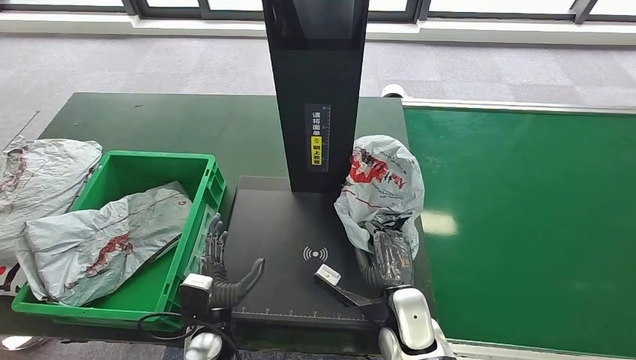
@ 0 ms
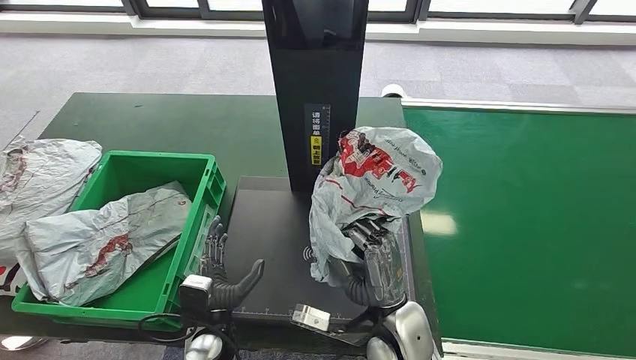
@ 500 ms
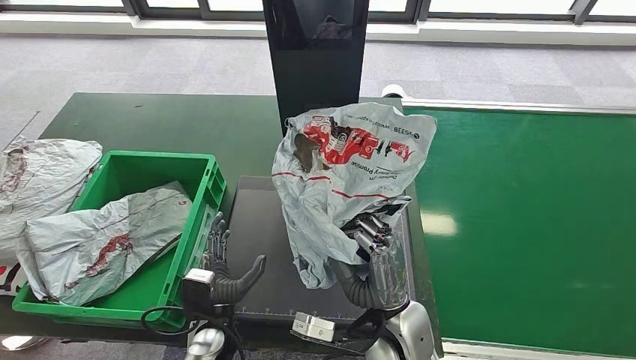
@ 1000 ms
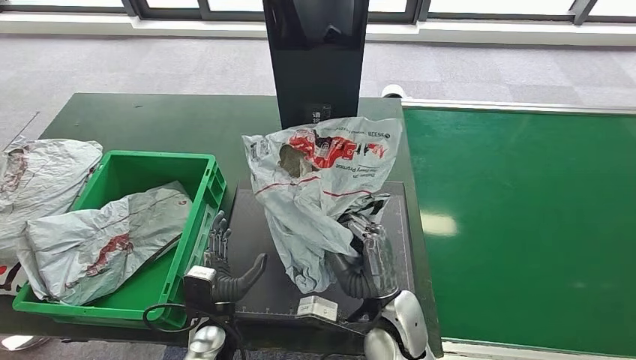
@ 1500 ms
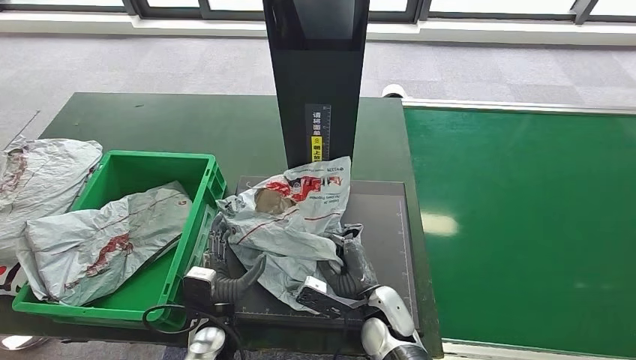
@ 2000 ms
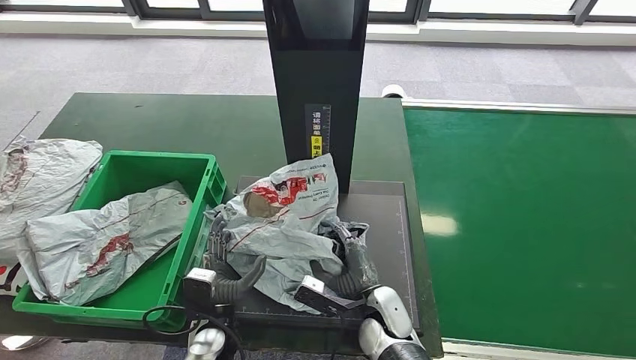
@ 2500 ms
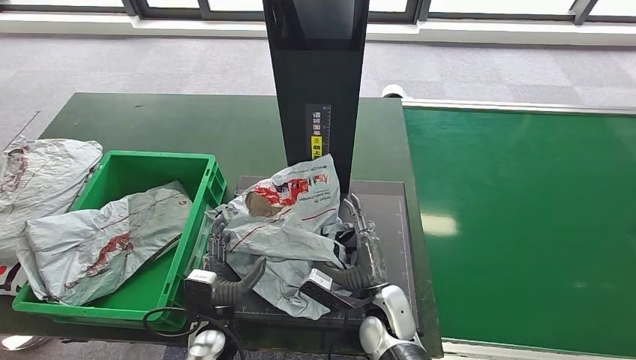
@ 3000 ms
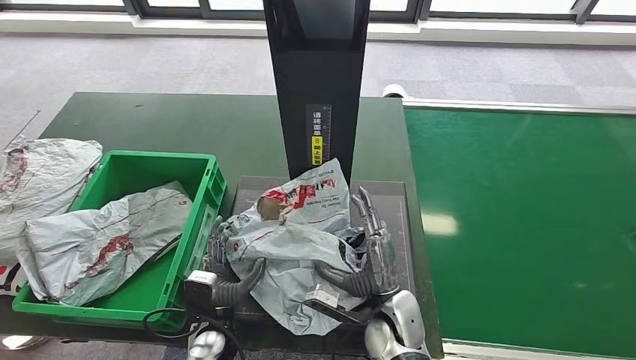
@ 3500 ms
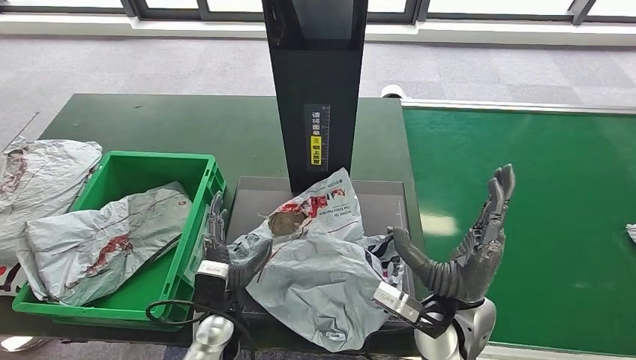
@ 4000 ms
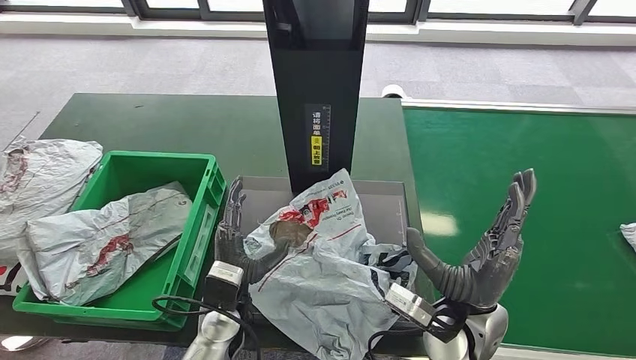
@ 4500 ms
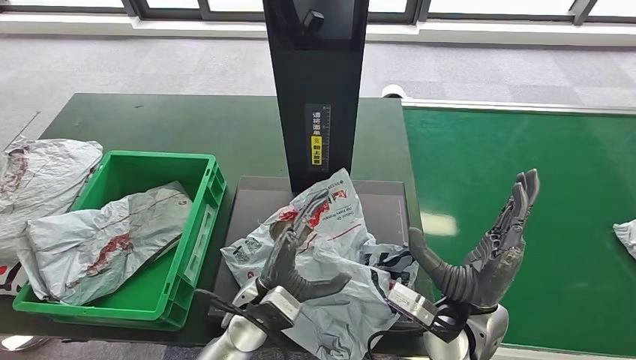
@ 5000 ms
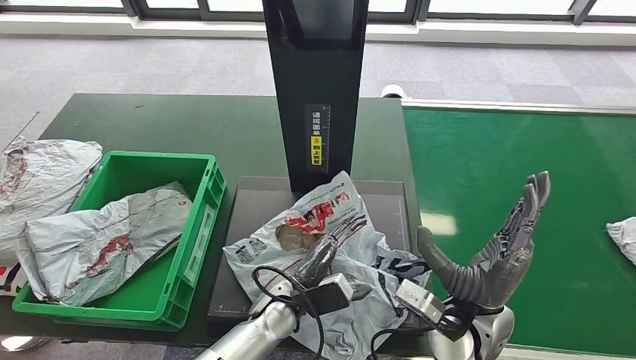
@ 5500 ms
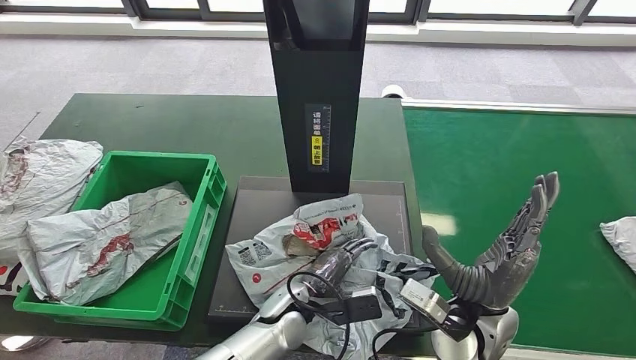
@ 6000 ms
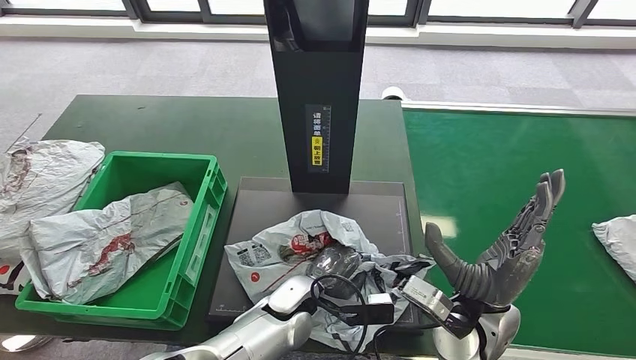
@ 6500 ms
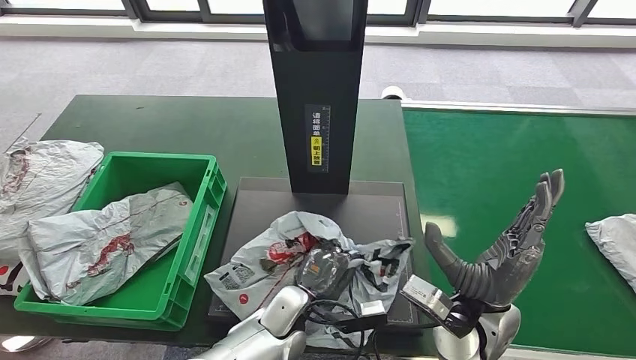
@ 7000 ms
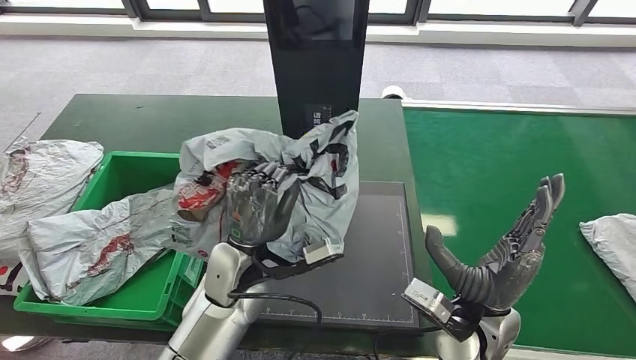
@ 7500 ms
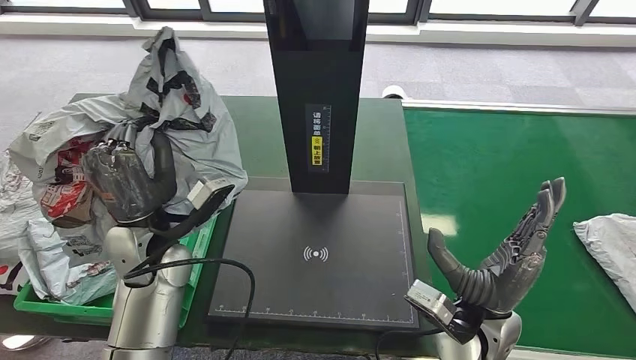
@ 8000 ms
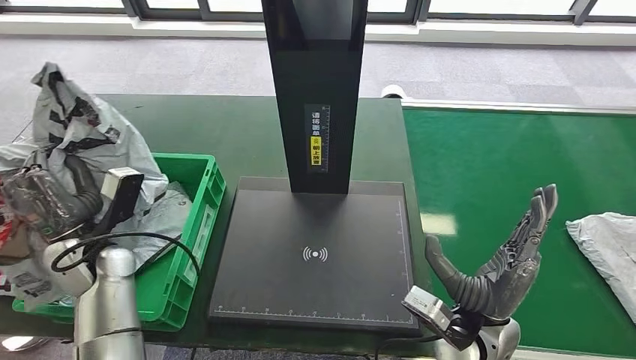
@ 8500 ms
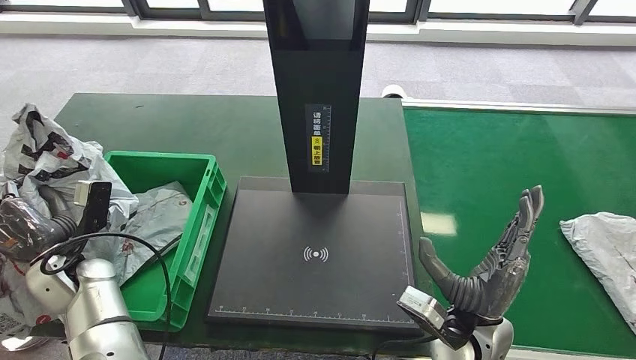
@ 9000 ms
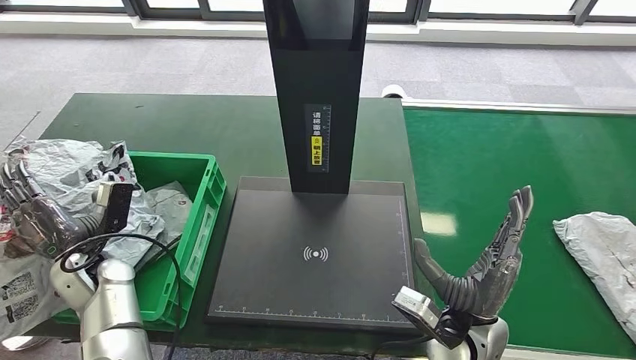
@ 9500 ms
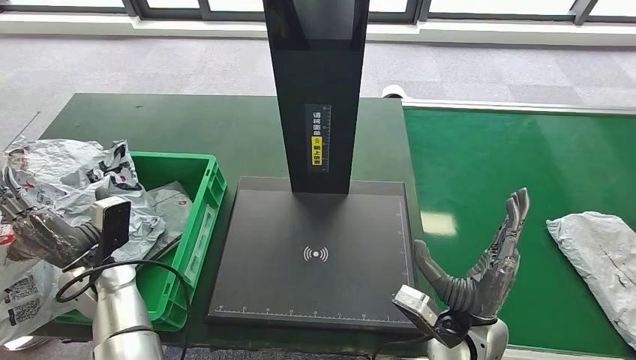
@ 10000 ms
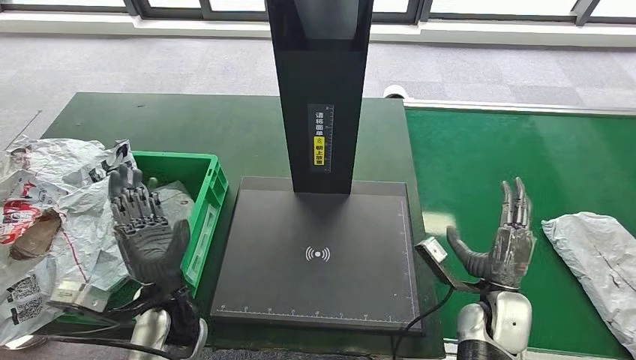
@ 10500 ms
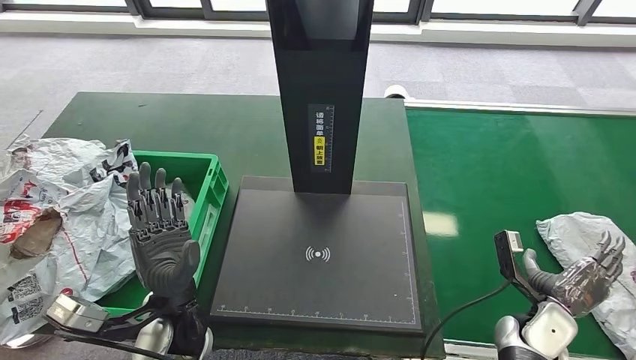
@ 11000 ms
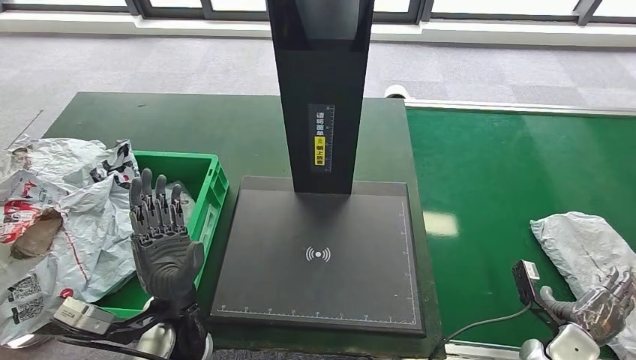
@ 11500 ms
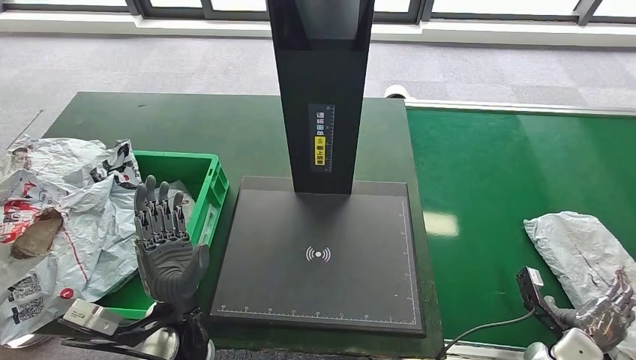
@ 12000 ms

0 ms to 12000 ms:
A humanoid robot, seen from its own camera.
Step, 0 ms to 4000 ms: Place the parcel onto the inbound machine.
Step, 4500 ms to 8500 ms: Pick up the parcel from the inbound machine.
Step, 9000 ms to 12000 ms: Place the parcel into the delivery box.
0 ms to 2000 ms: The right hand moves approximately 5 cm upward and comes back.
2000 ms to 4000 ms: The right hand heads upward and to the right, covering some 15 cm.
4000 ms to 6000 ms: The left hand is displaced to the right by about 15 cm.

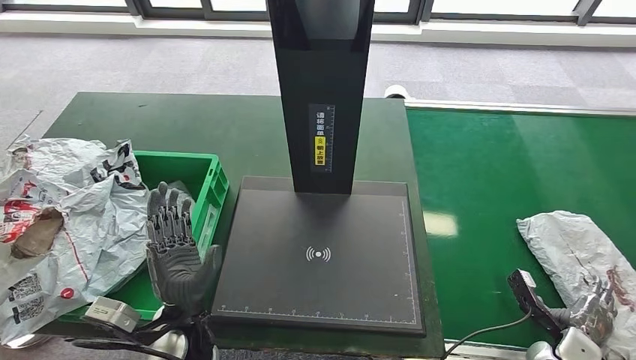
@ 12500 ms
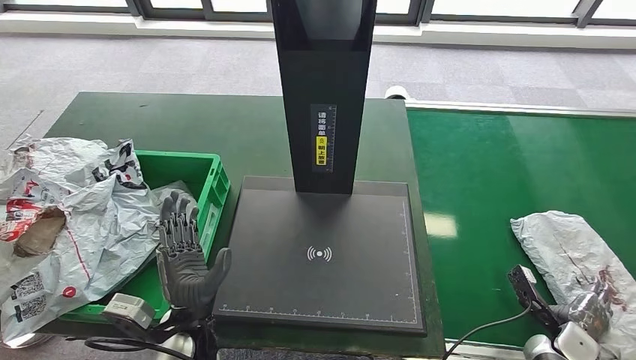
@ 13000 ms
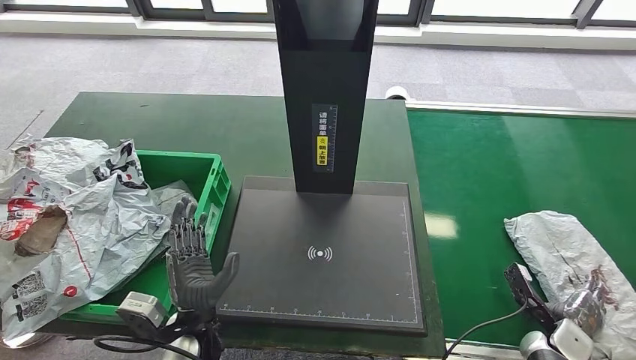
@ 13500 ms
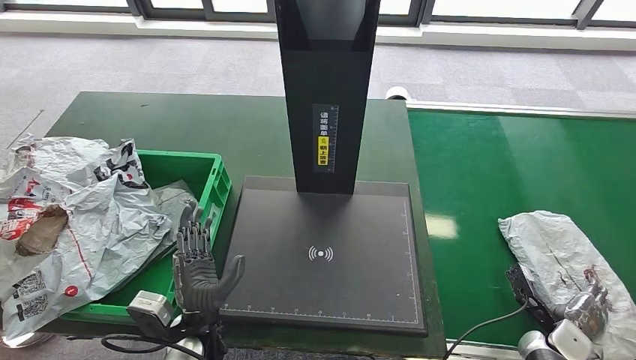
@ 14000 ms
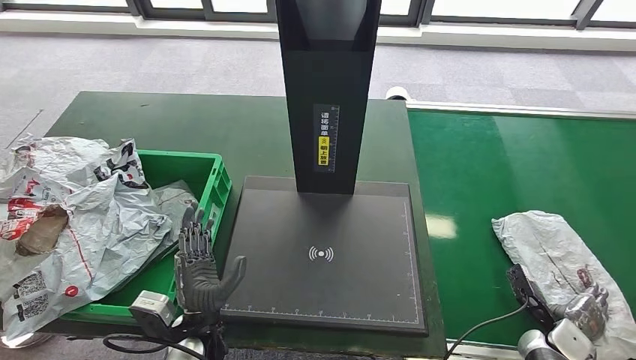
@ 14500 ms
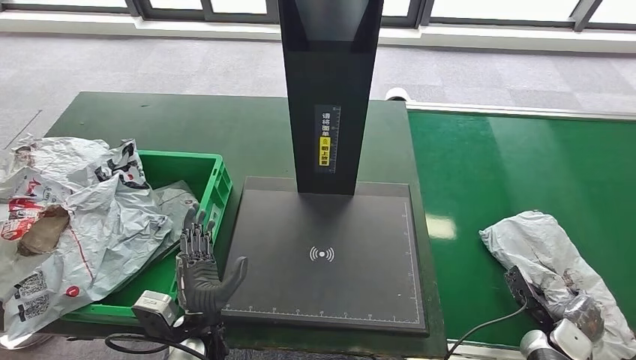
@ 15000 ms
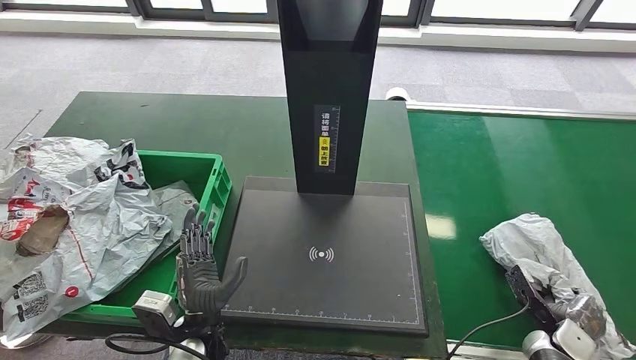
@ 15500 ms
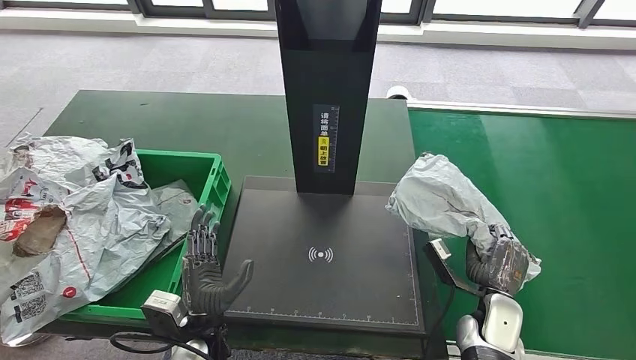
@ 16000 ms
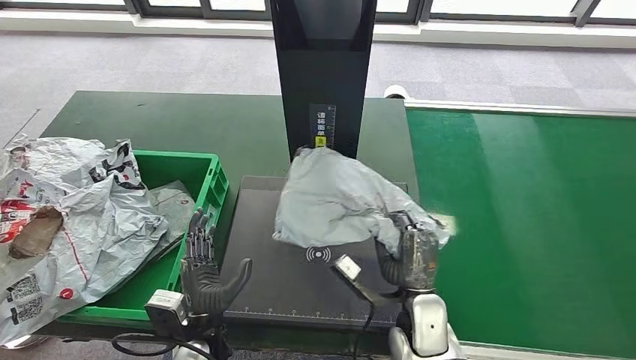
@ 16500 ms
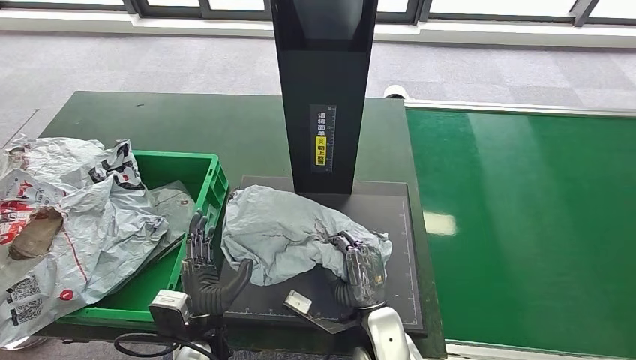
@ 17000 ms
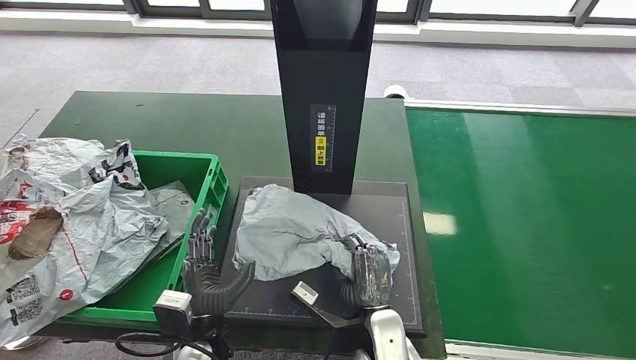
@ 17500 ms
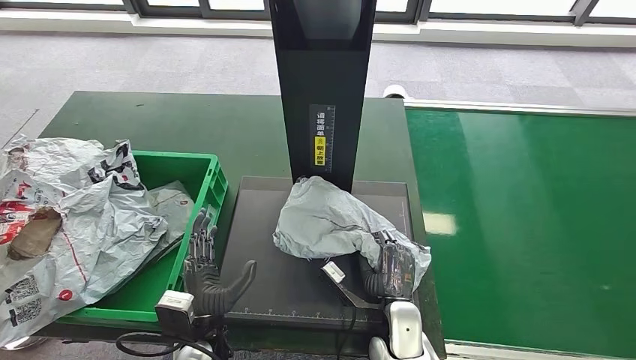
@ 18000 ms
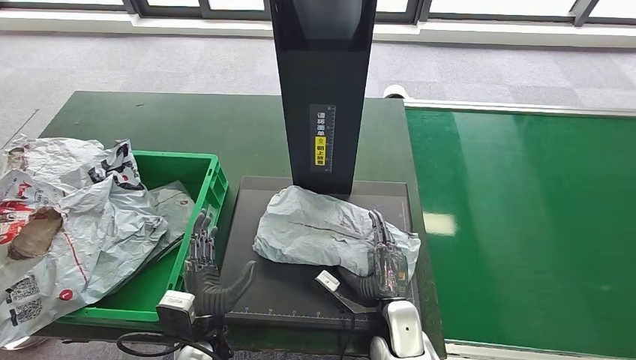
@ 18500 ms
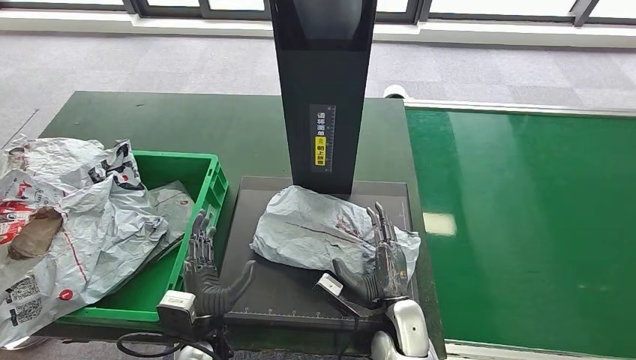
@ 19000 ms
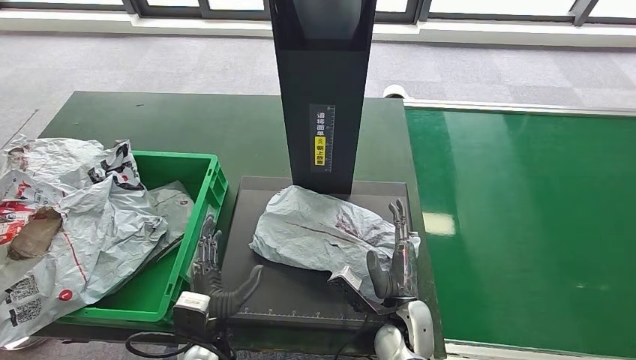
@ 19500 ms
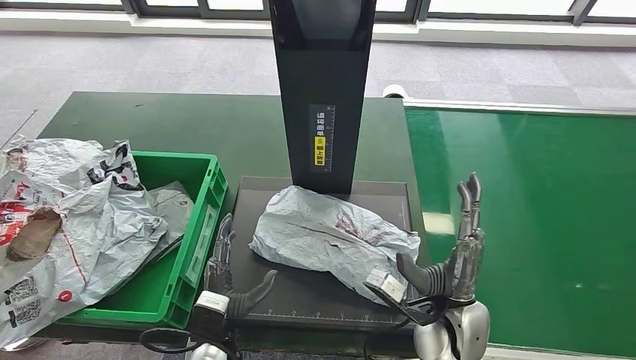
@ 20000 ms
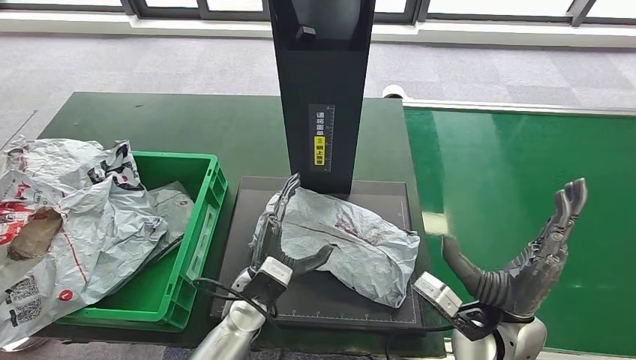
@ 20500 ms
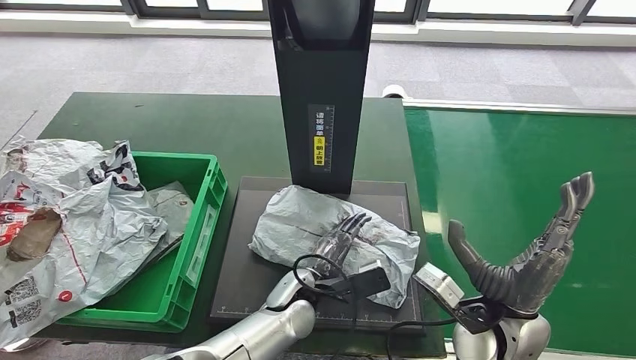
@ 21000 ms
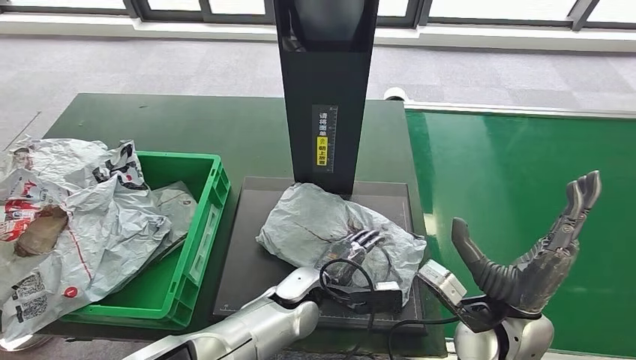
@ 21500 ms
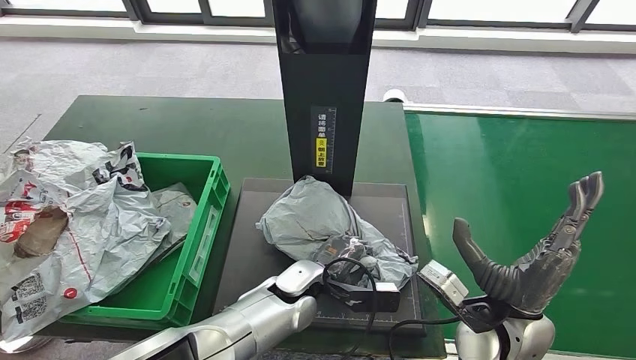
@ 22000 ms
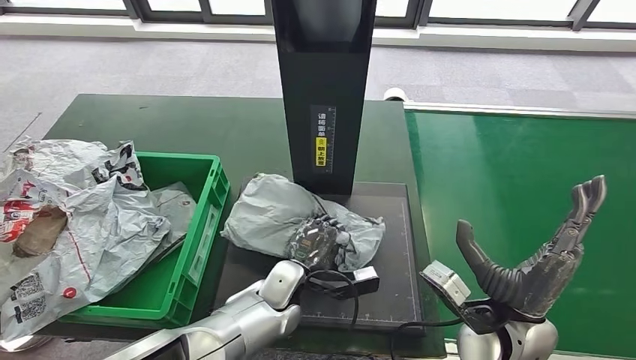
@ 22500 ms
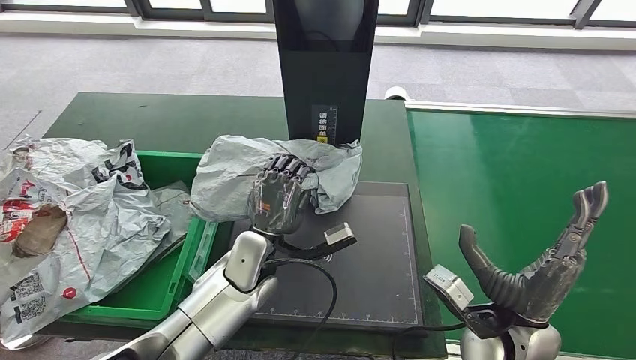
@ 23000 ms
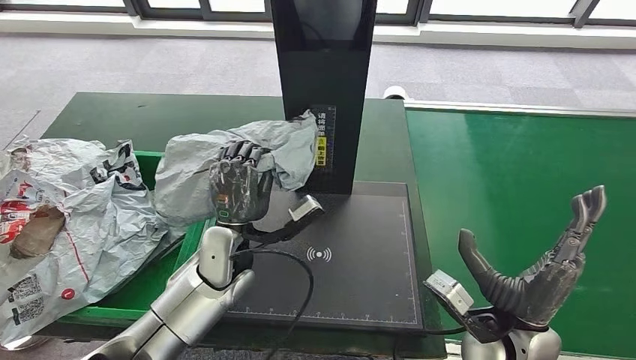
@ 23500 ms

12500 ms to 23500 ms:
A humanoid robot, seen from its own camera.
Step, 12500 ms to 16000 ms: Pick up the parcel from the conveyor belt.
Step, 16500 ms to 20000 ms: Place the parcel onto the inbound machine.
18000 ms to 20000 ms: The right hand travels upward and to the right by about 10 cm.
